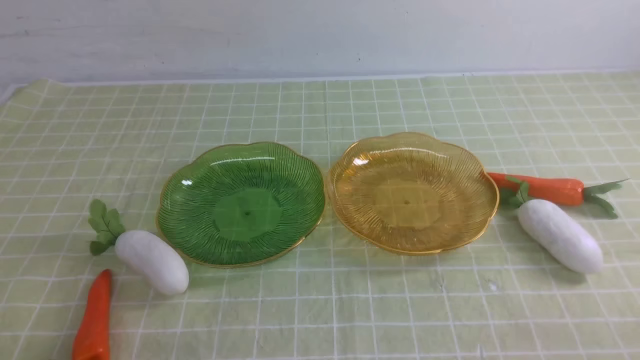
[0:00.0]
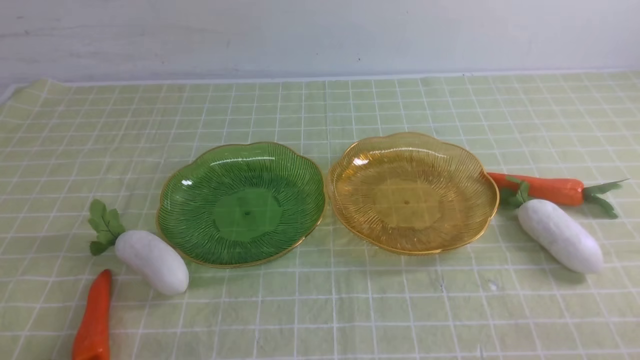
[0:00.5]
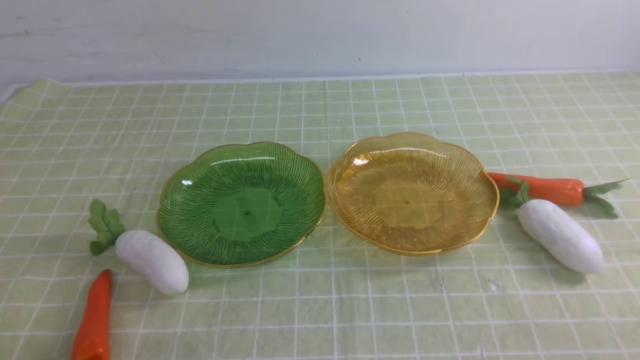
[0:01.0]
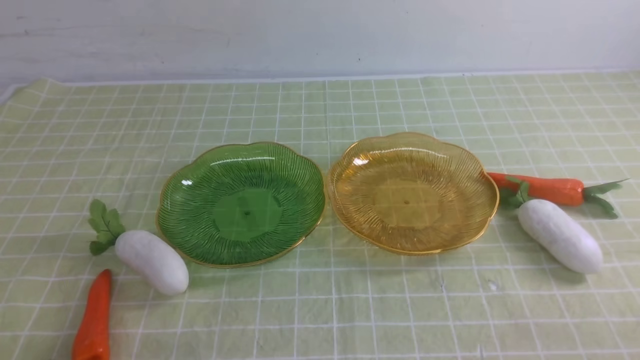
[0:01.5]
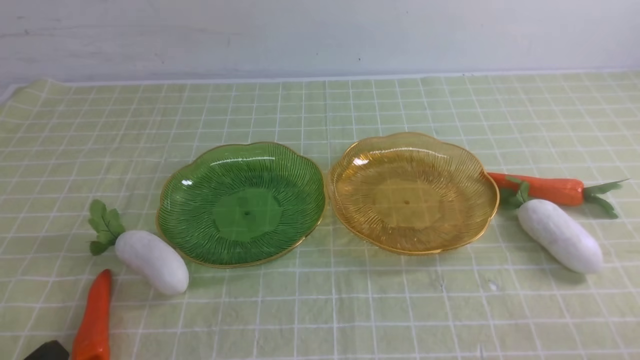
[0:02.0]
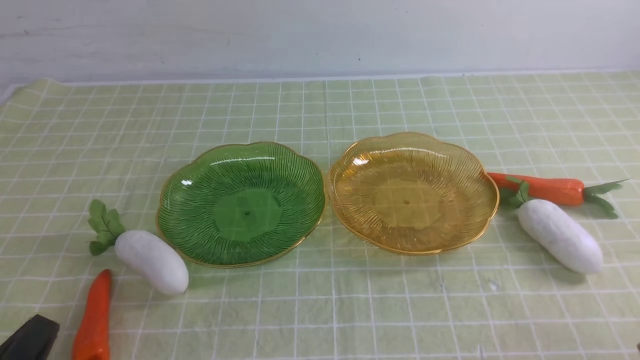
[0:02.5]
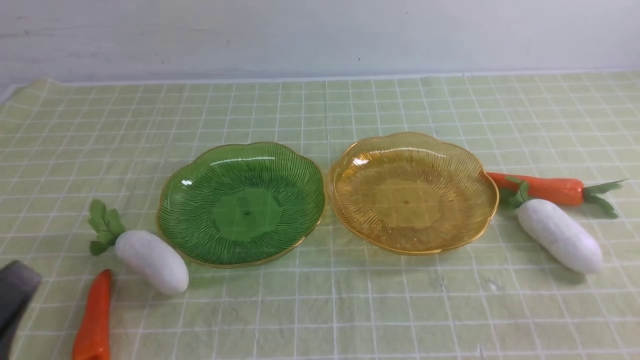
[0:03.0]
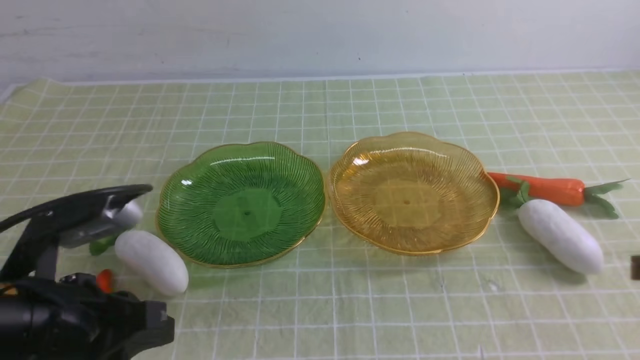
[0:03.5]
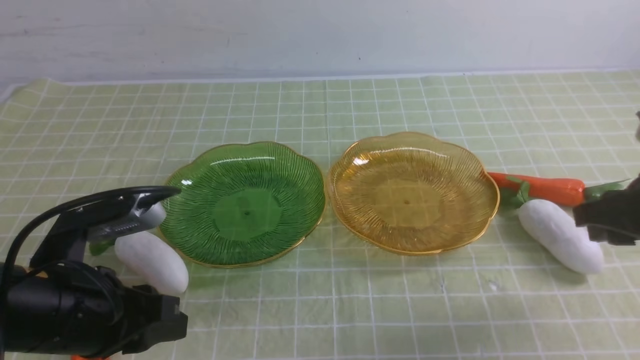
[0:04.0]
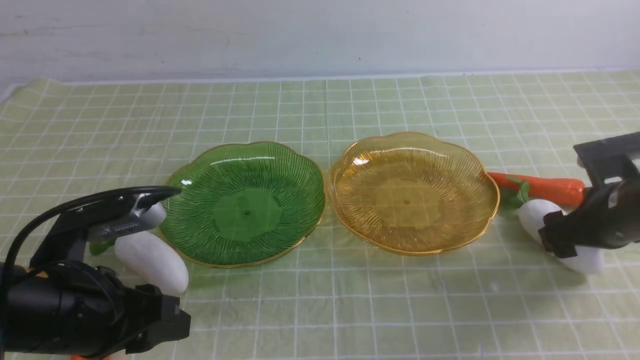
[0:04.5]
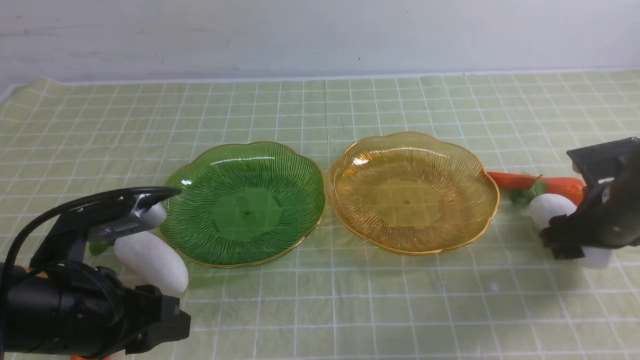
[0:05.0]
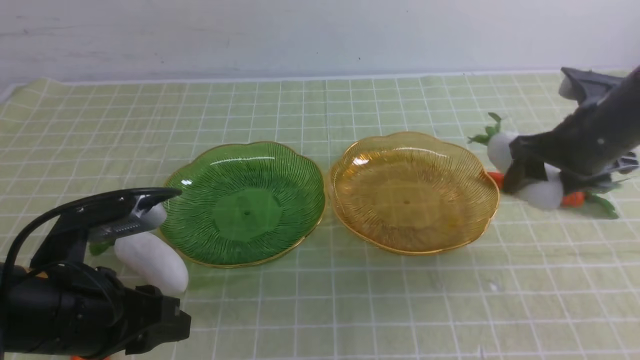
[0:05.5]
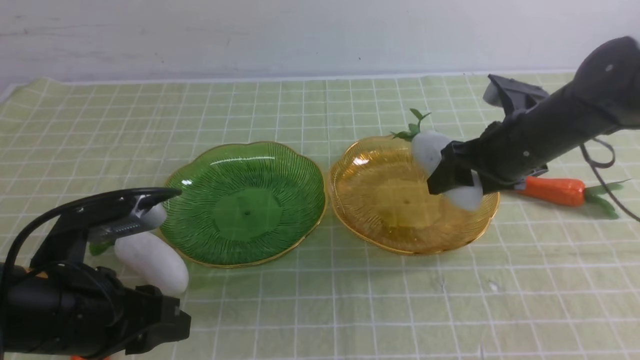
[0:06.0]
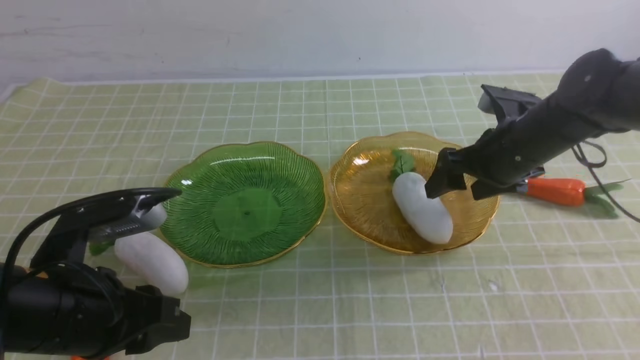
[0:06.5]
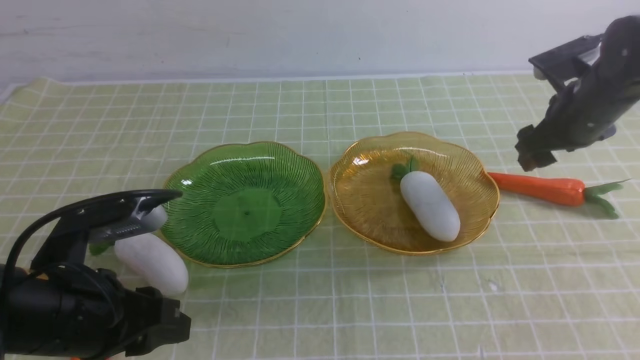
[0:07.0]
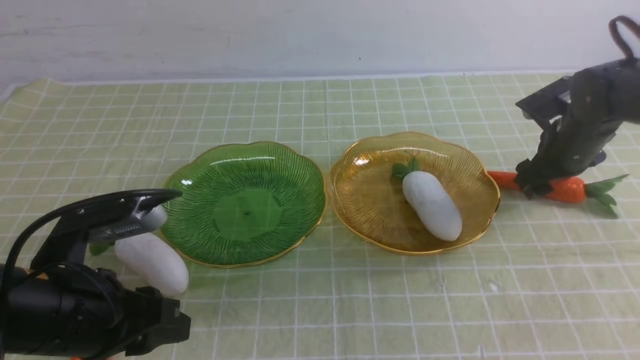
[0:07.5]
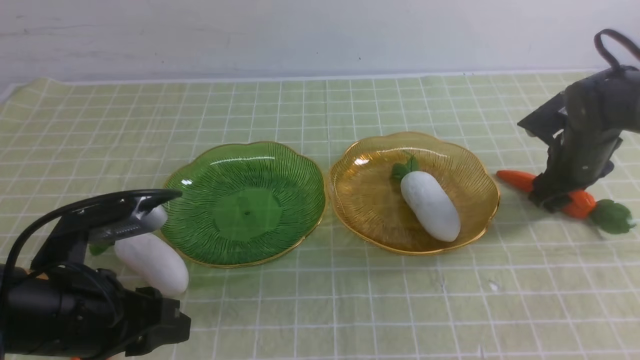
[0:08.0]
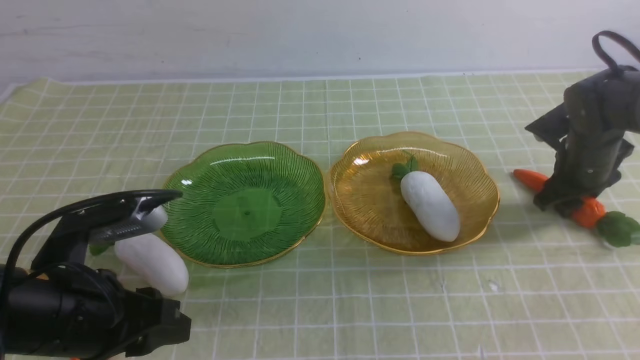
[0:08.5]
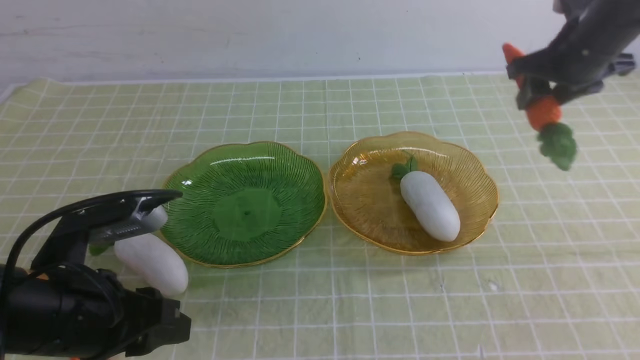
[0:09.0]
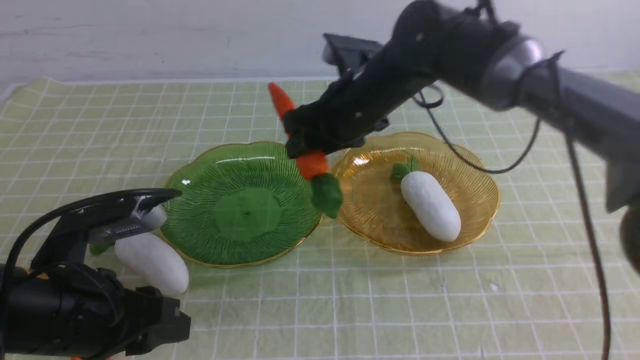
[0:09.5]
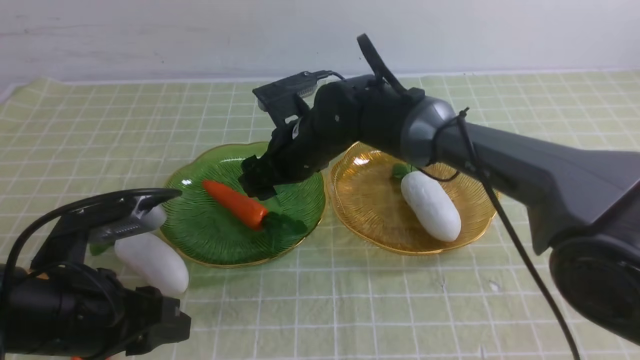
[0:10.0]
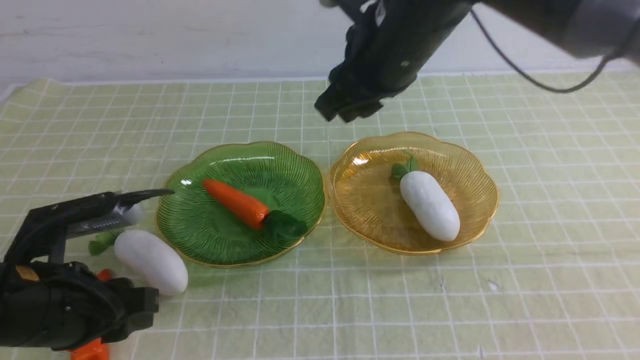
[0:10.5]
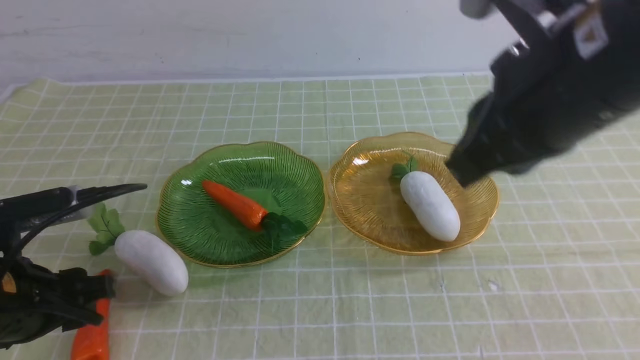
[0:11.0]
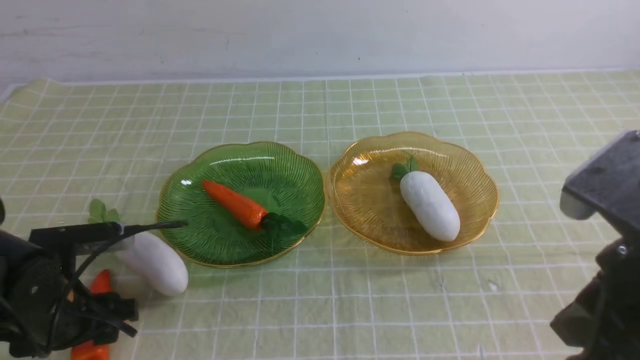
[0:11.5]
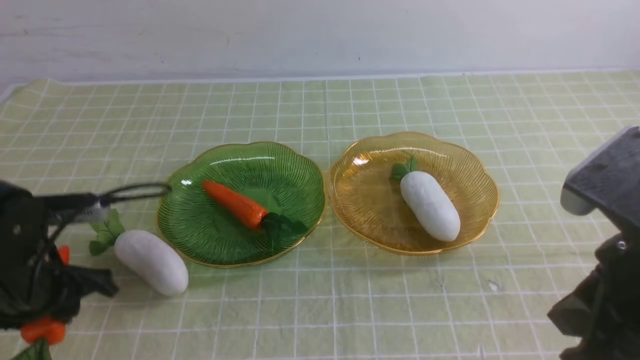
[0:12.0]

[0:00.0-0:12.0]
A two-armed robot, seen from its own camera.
Step, 0:00.0 to 0:06.0: use the right arm to grab a radish and put it into the right plate.
Step, 0:06.5 to 0:10.0: use the right arm to grab a carrot and put it into the left plate.
0:02.0 to 0:04.0: The left gripper goes about 15 cm forward and upward, and opens its fingers. Meanwhile the right gripper is displaced forward by about 20 cm, and opens its fingers.
0:04.0 to 0:06.0: The right gripper shifts about 15 cm forward and to the left.
0:06.0 to 0:08.0: The right gripper moves to the right, downward and forward, roughly 15 cm.
0:08.0 to 0:10.0: The right gripper goes roughly 35 cm to the left.
0:10.0 to 0:12.0: The left gripper shifts about 10 cm forward and to the left. Meanwhile the right gripper heads backward and to the right, covering some 35 cm, and closes its fingers.

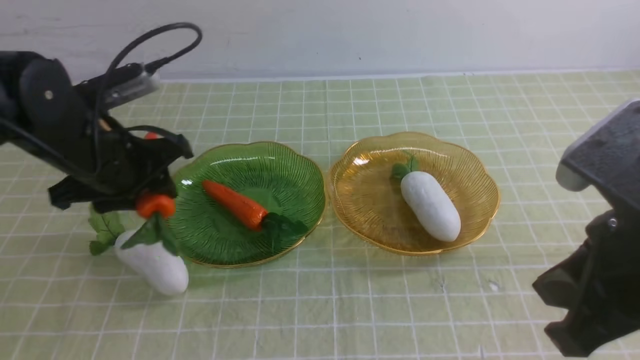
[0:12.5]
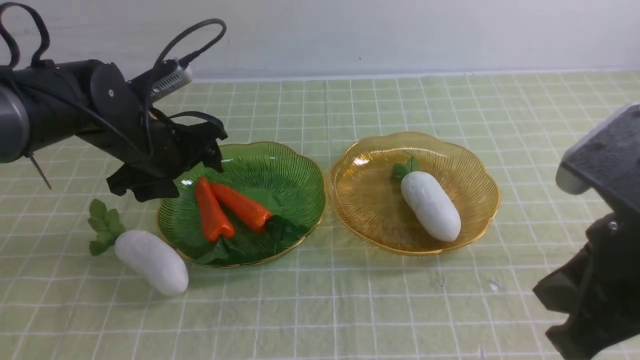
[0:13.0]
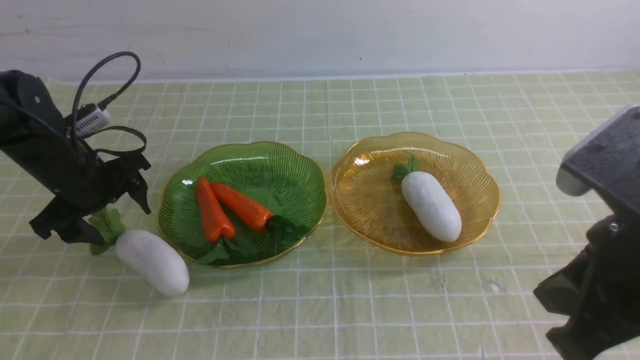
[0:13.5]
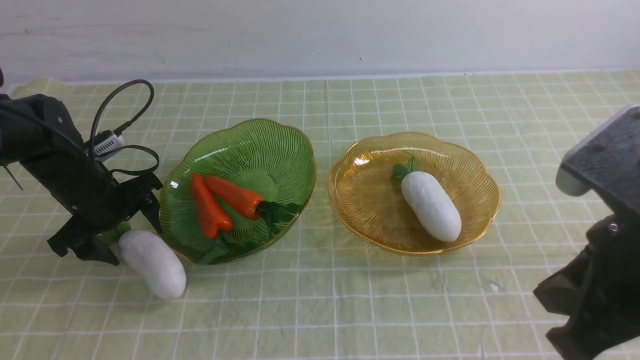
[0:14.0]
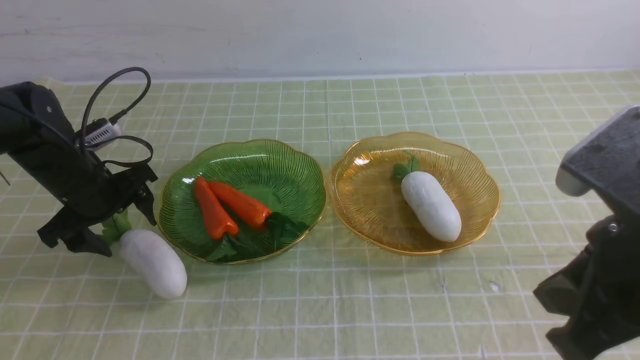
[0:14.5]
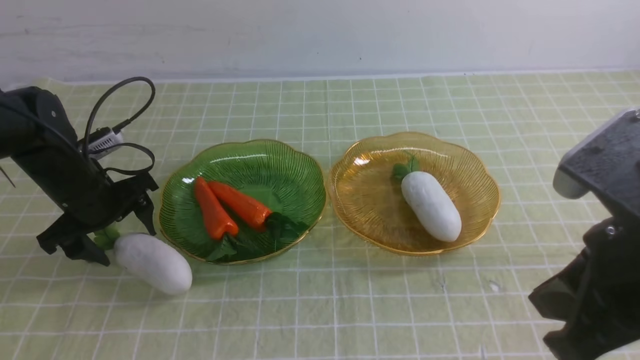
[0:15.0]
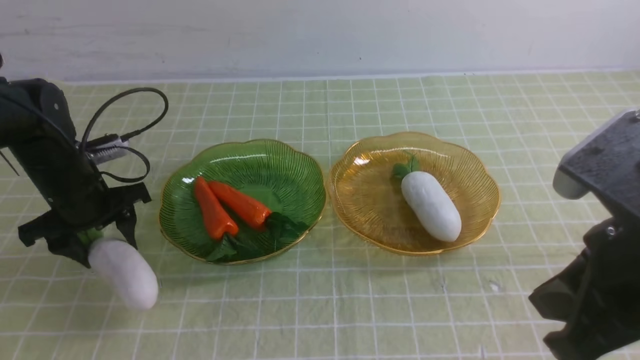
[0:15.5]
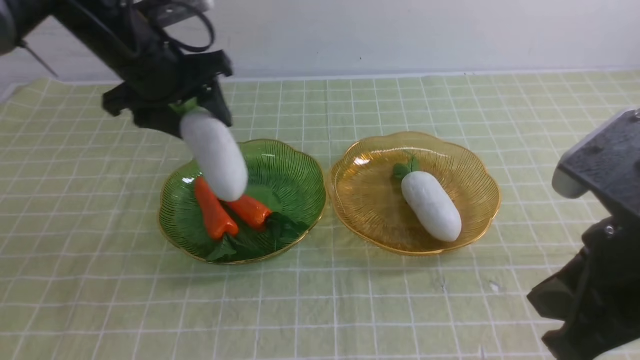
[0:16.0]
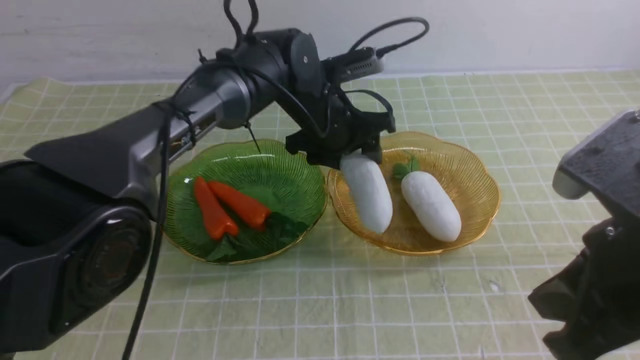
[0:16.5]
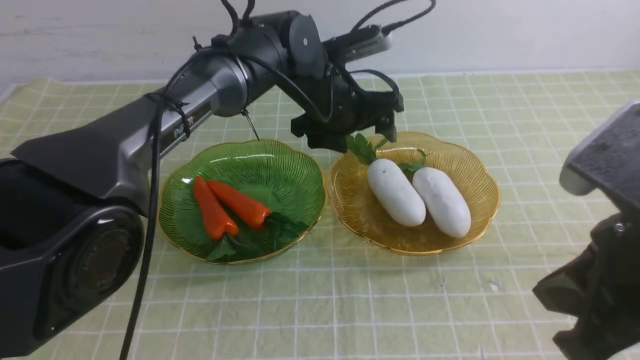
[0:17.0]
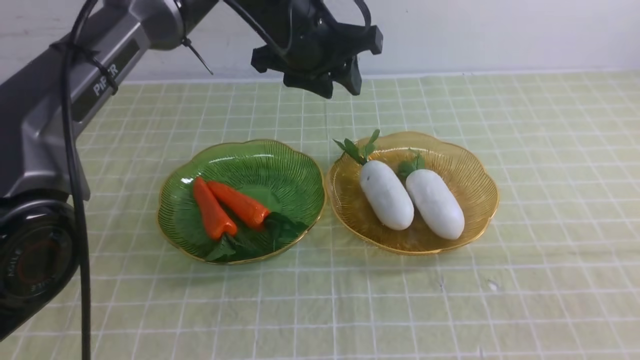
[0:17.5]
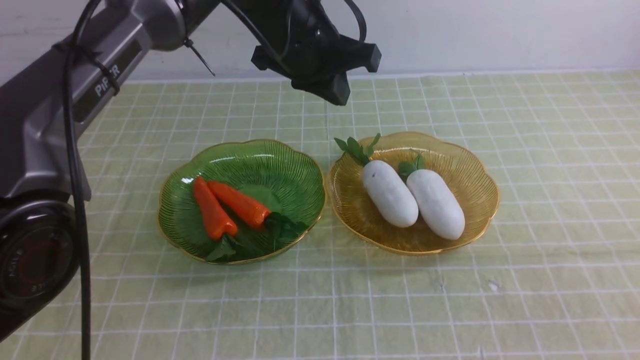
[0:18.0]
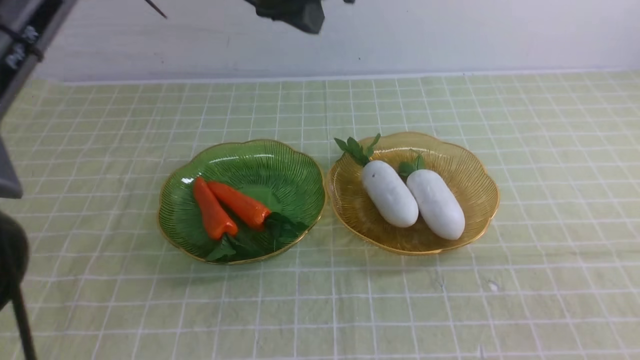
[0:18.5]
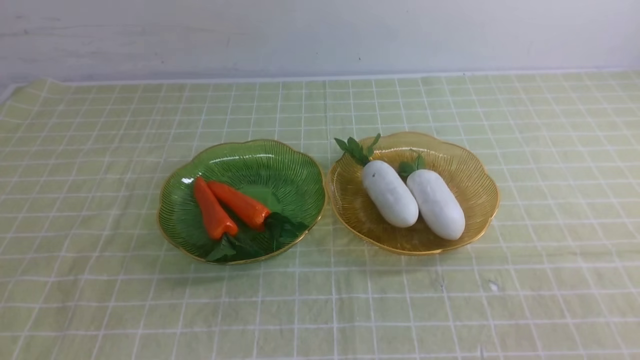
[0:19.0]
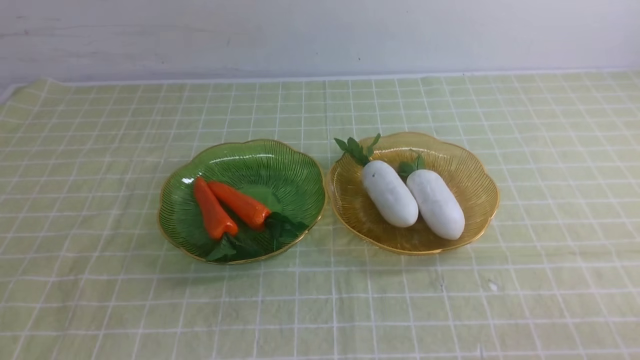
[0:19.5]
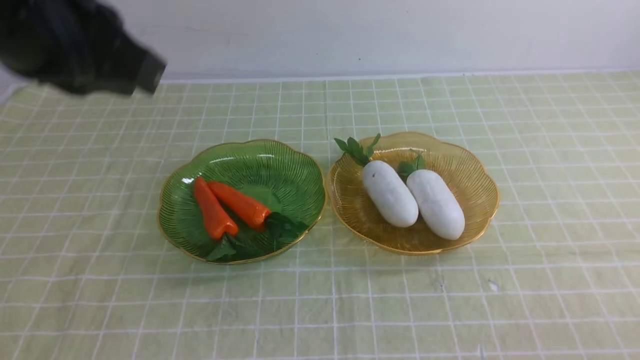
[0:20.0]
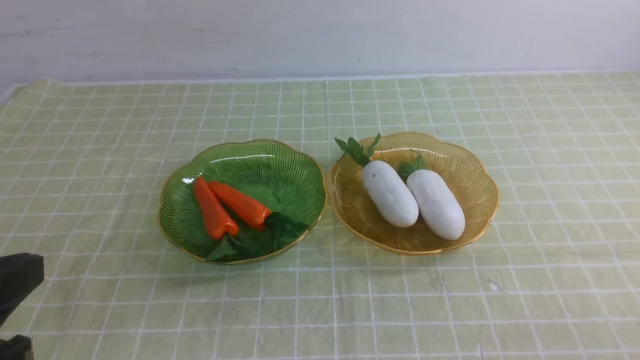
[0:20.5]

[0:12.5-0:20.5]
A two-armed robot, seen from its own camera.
Step, 0:13.0 to 0:16.5: use the left arm to grab a radish and put it into the right plate.
0:12.5 to 0:14.5: The left gripper heads downward and to the left, covering about 10 cm, and opens up.
0:14.5 to 0:16.5: The left gripper goes some 25 cm to the right.
0:16.5 to 0:18.5: The right gripper shifts about 10 cm backward and to the right, while the left gripper heads upward, covering roughly 20 cm, and closes its fingers.
0:18.5 to 0:20.5: The left gripper shifts approximately 35 cm backward and to the left; the right gripper travels downward by roughly 15 cm.
